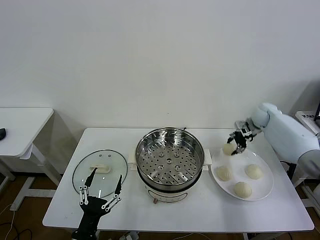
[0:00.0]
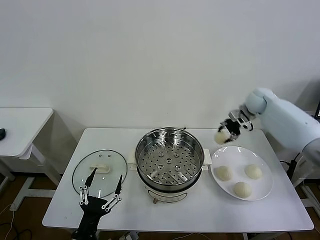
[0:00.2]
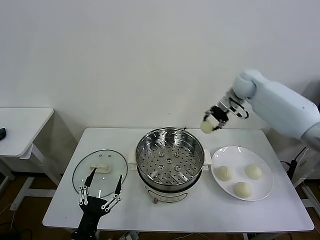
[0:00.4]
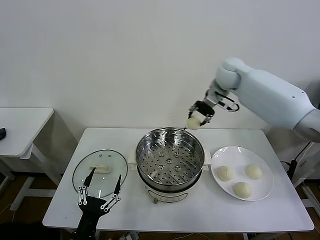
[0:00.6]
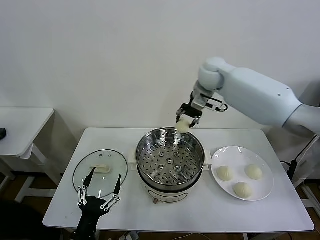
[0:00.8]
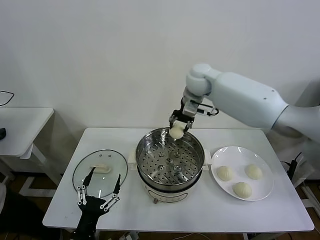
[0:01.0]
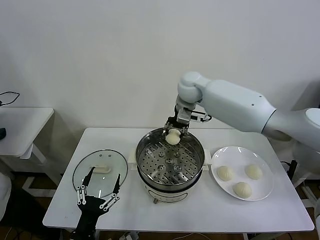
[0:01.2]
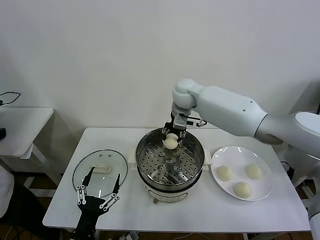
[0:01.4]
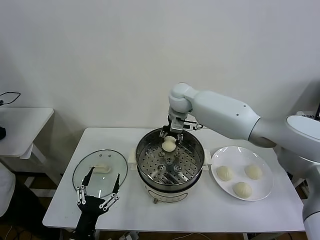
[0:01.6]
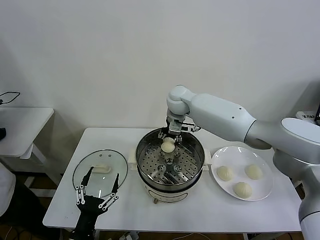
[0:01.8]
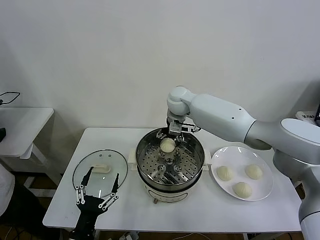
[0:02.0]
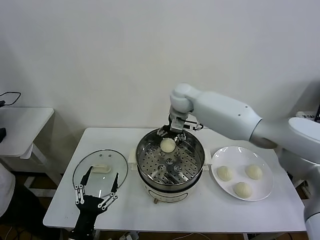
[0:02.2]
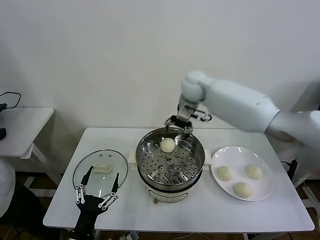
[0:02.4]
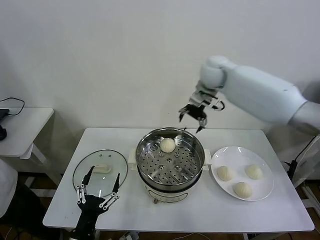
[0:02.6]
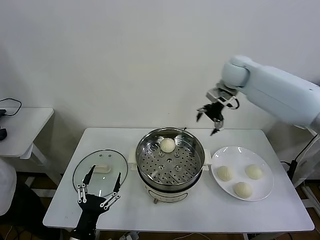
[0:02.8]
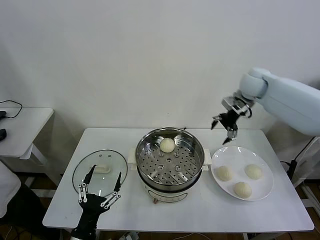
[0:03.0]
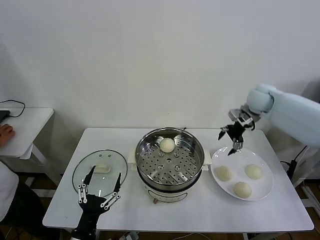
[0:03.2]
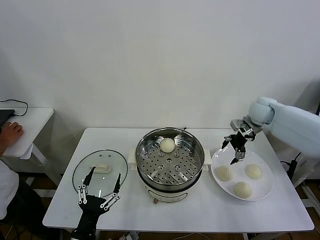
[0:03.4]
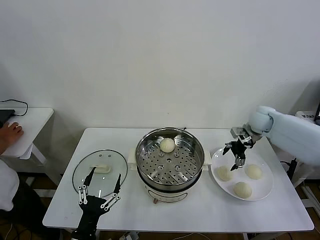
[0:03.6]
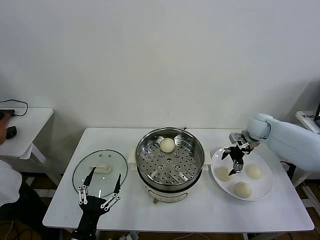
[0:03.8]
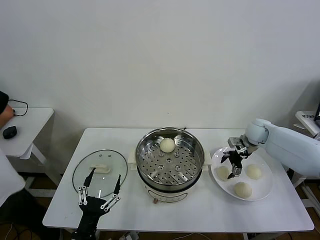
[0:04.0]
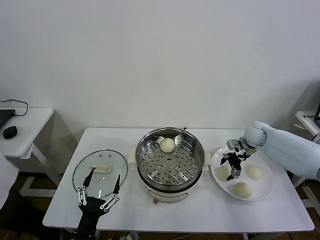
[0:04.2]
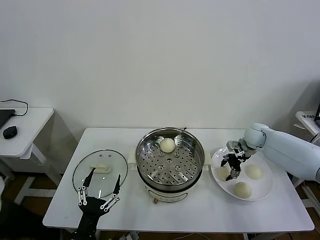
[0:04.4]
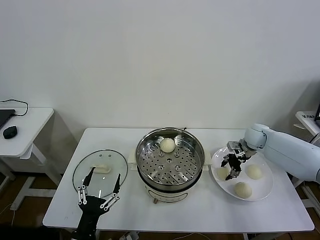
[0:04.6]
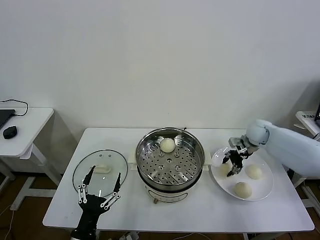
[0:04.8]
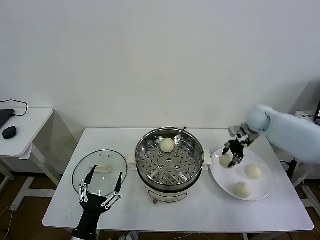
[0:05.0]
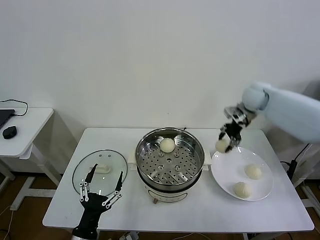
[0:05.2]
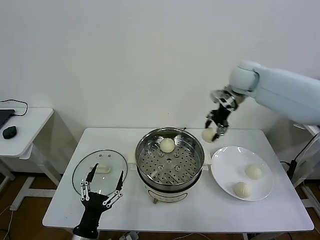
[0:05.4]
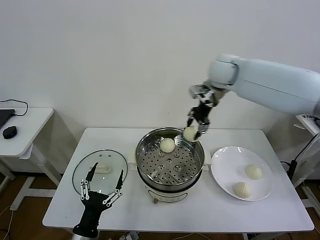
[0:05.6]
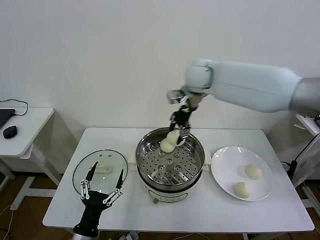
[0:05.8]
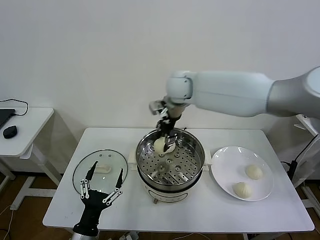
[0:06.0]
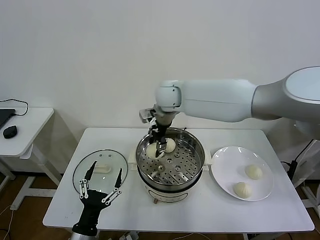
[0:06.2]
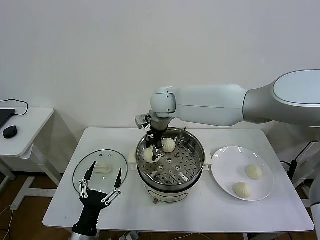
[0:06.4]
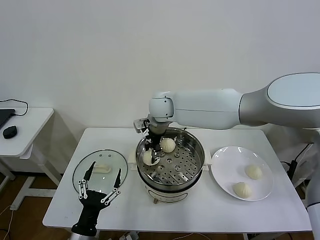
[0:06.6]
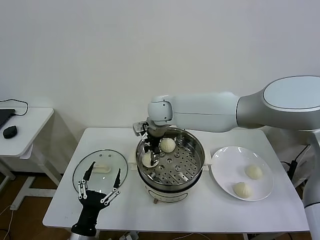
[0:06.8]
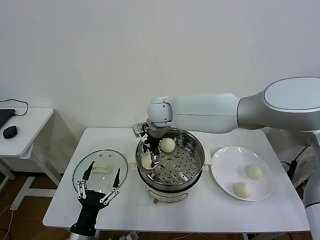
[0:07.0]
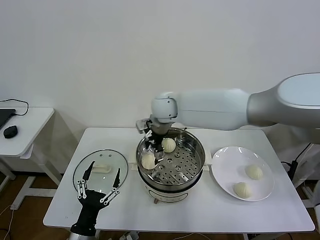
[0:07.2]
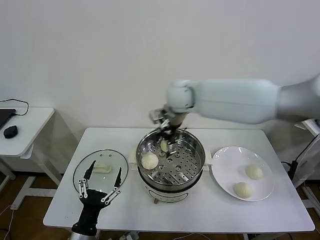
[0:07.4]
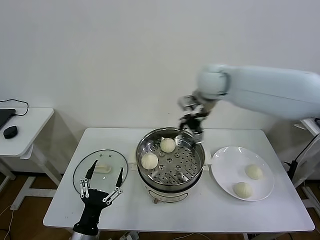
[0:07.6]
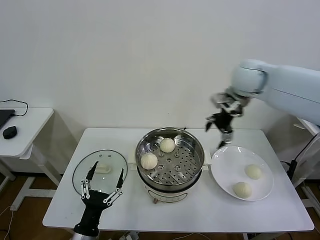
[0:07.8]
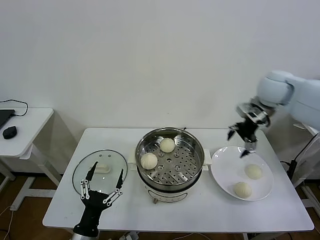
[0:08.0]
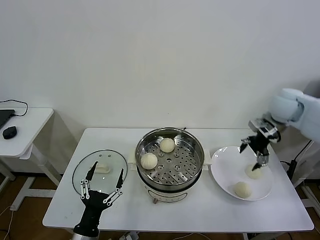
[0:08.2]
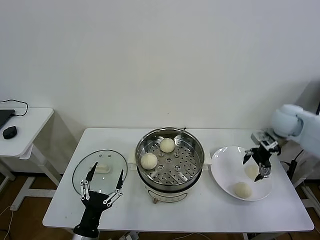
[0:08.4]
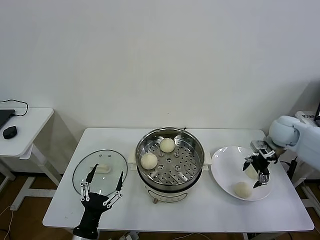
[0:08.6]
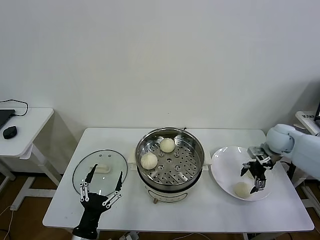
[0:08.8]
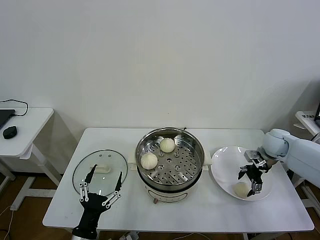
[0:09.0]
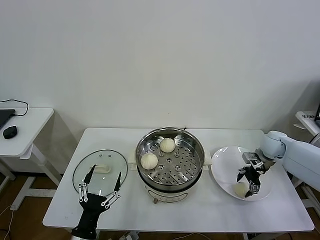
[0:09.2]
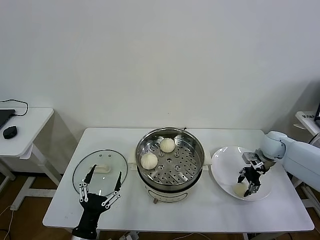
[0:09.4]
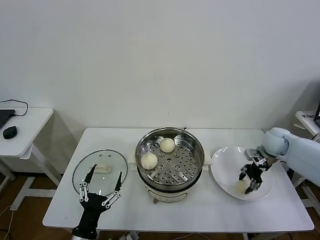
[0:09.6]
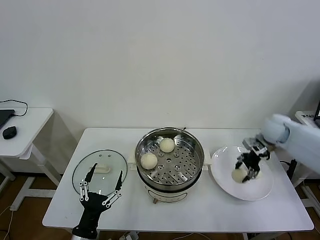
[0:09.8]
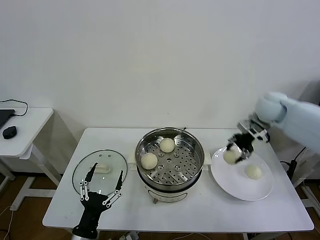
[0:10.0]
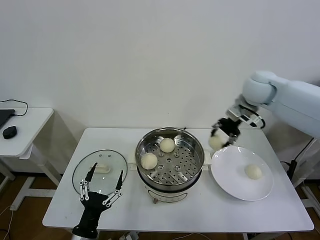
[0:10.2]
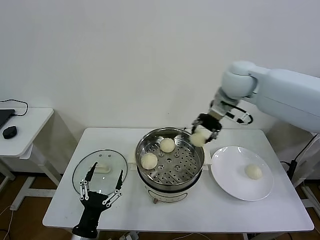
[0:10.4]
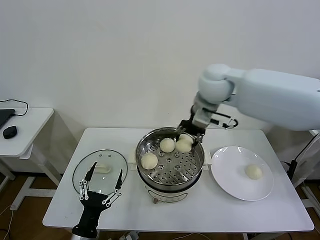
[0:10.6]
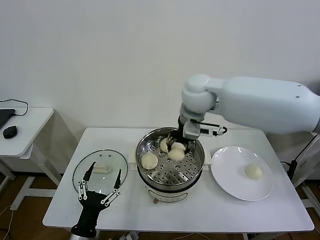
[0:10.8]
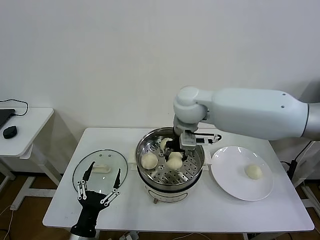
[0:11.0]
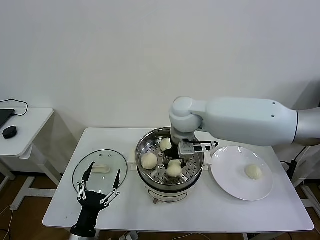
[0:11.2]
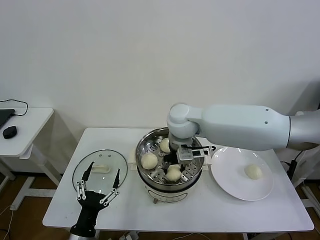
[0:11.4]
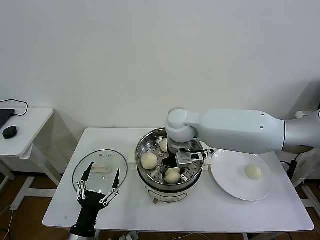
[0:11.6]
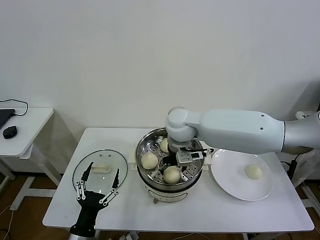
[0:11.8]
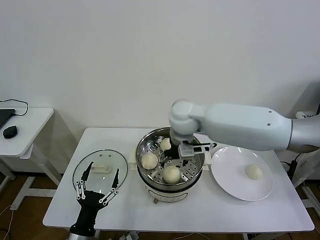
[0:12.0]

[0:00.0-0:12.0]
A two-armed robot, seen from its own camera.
Task of the whole recording: take steamed baozi put them in steamer then cover it.
Step, 0:00.0 to 0:02.0: Place the baozi on the steamer with right gripper.
Step, 0:02.2 to 0:04.6: Grasp the baozi in the plate with right gripper.
Step, 0:04.8 to 0:06.8: Place the baozi on the steamer with right gripper.
Step, 0:07.2 to 0:09.4: Grasp the baozi in the plate with right gripper.
Step, 0:09.6 to 0:11.6: Place the baozi on the steamer with right gripper.
0:00.0 to 0:01.6: The right gripper is displaced to the left by some 35 cm.
0:01.6 to 0:03.0: The right gripper is displaced to the right by some 25 cm, and opens up.
0:03.0 to 0:04.4: The right gripper heads downward, covering some 20 cm, and closes.
0:04.4 to 0:06.0: The right gripper travels to the left and upward by some 40 cm.
0:06.0 to 0:07.6: The right gripper goes roughly 15 cm to the right, and opens its fingers.
0:07.6 to 0:09.0: The right gripper shifts some 35 cm downward and to the right.
0:09.0 to 0:10.4: The right gripper heads upward and to the left, covering roughly 35 cm, and closes up.
0:10.4 to 0:12.0: The right gripper shifts some 15 cm to the left and downward, and opens its fingers.

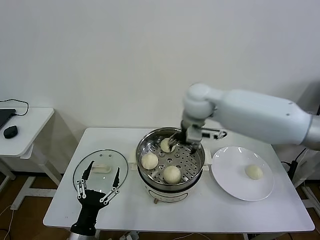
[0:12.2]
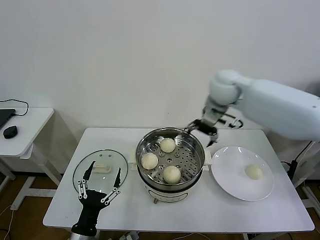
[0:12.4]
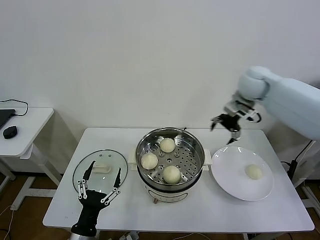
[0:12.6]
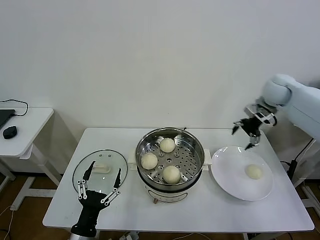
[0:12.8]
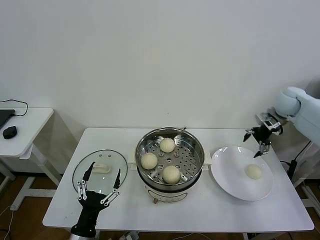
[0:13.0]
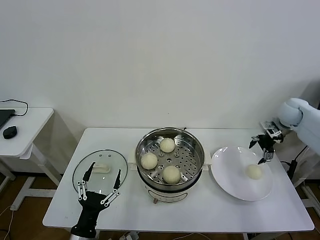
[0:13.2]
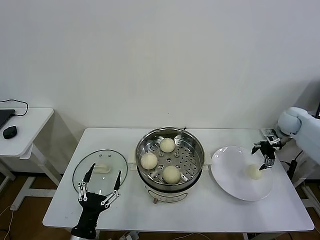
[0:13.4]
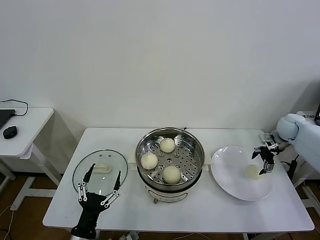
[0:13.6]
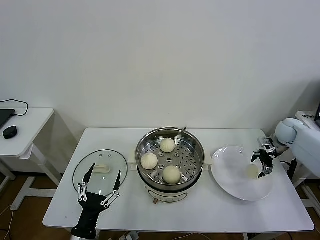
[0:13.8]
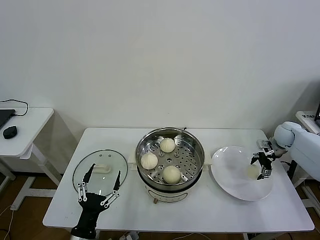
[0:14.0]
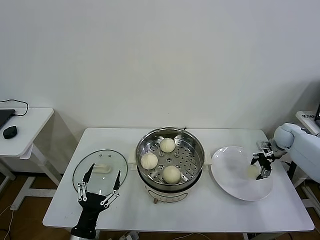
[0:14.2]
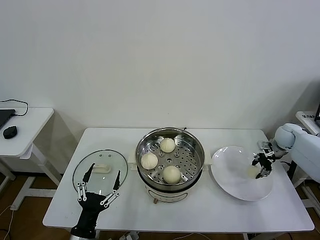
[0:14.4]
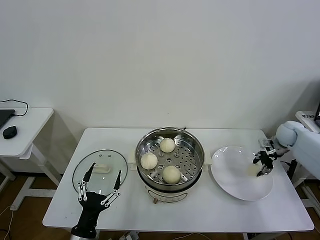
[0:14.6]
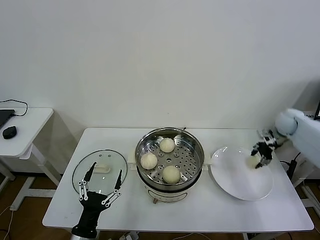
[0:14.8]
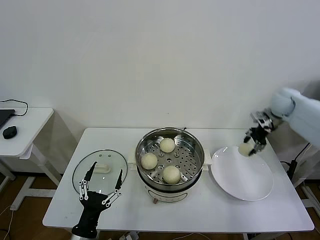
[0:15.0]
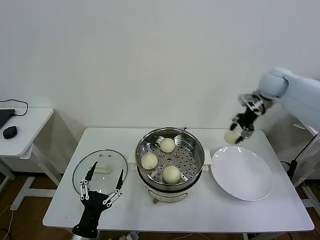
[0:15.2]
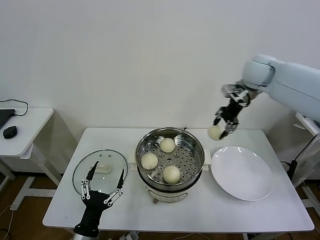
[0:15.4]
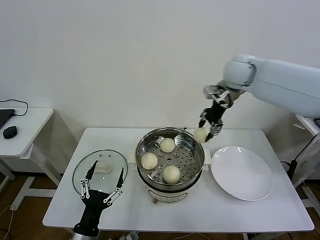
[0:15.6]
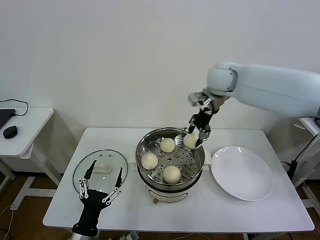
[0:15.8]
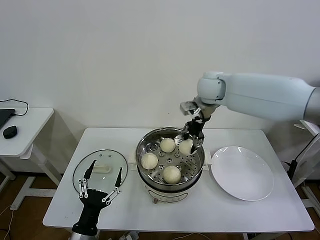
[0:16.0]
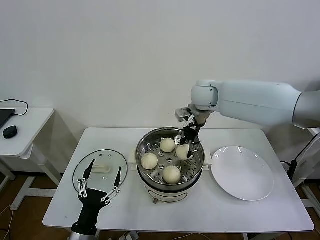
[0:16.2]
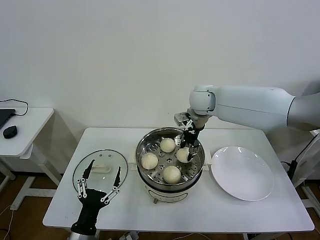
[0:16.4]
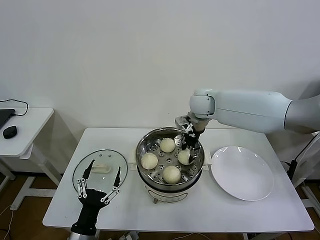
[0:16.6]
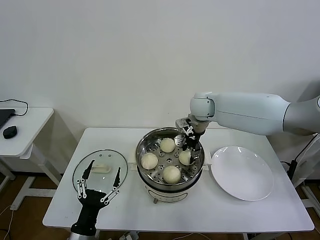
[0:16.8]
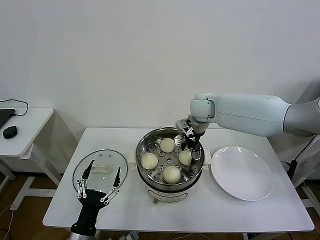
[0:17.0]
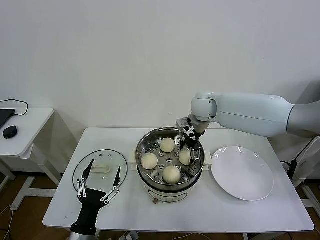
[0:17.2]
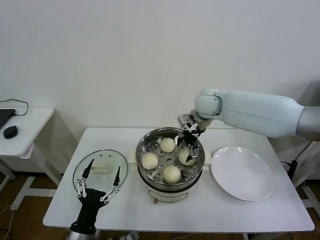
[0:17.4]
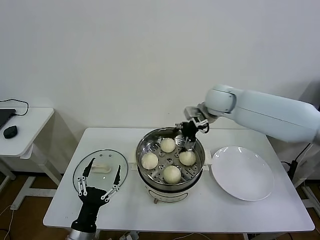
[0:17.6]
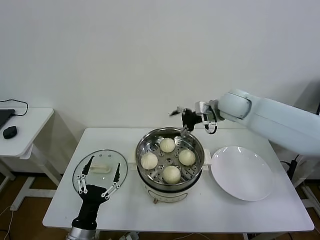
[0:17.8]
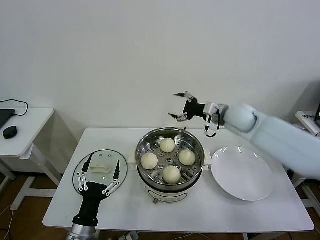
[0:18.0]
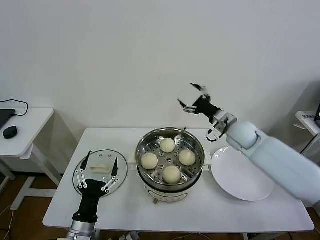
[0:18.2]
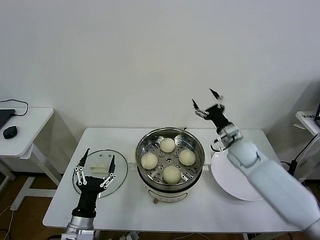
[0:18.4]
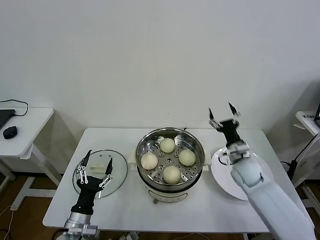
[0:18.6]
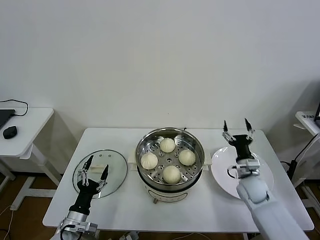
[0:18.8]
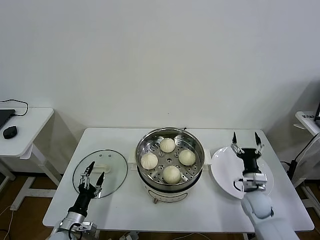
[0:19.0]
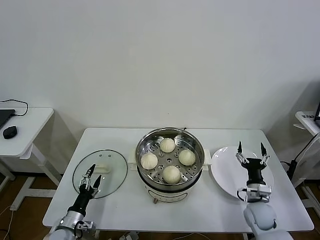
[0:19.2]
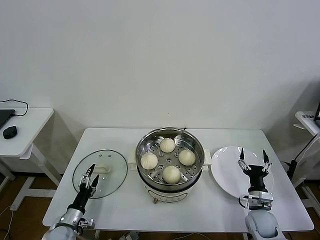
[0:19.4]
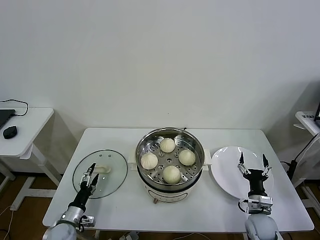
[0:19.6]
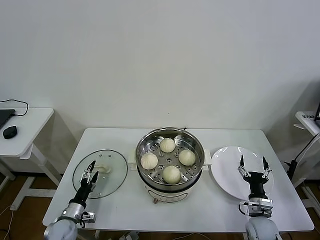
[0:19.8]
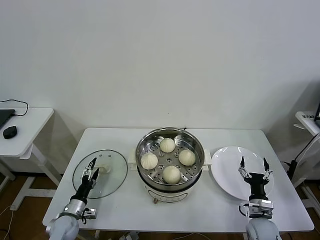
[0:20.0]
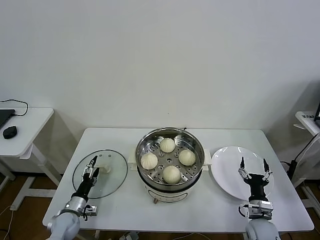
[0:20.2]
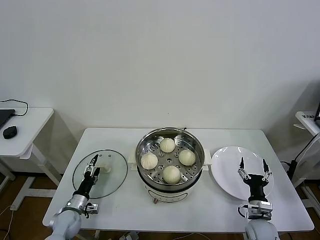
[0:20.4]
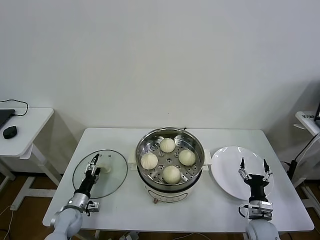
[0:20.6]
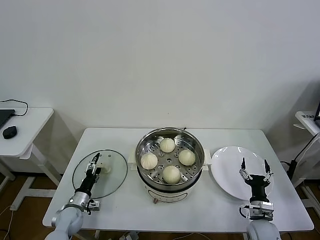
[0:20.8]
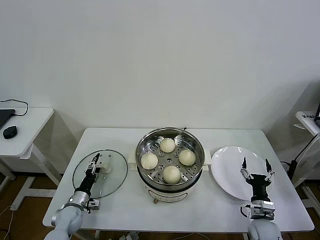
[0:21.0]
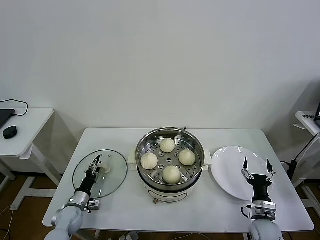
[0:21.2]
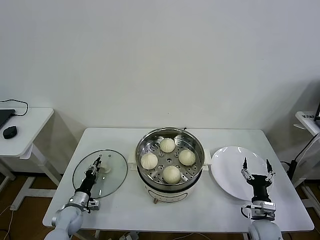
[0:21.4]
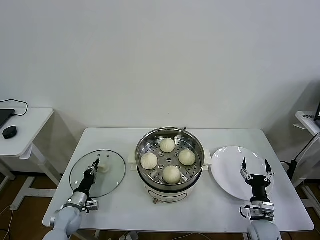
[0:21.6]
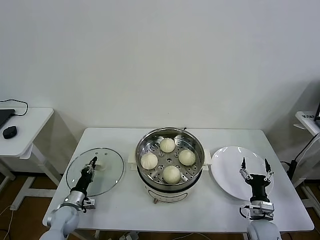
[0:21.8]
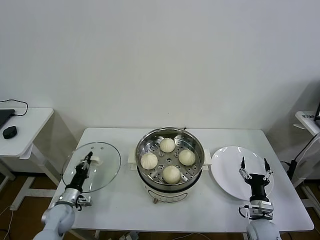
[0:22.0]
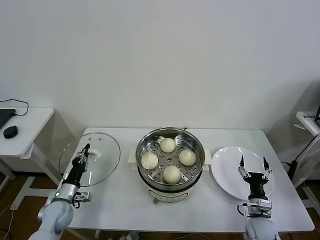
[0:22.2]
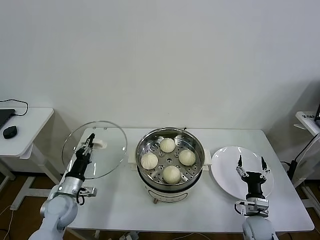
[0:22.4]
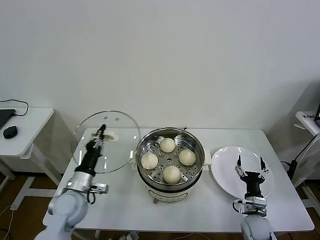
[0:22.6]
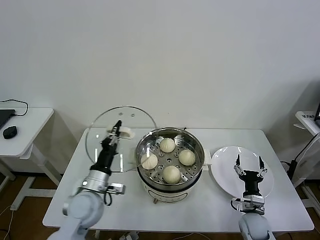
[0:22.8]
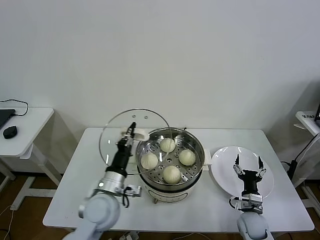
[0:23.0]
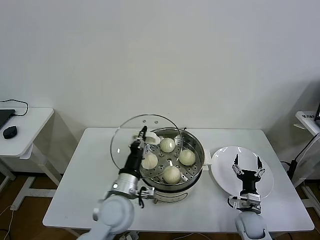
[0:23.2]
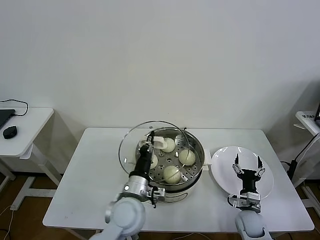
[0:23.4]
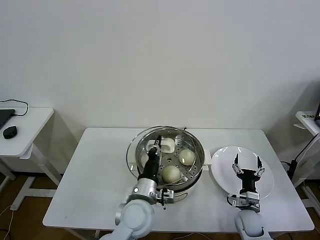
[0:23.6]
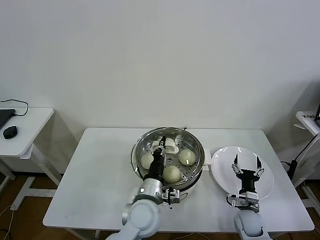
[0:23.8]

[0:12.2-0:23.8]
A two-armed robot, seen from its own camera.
Task of the whole recording: take steamed baozi put them in steamer then cover it.
Step, 0:12.2 to 0:14.4: Grasp the baozi in the plate with right gripper.
Step, 0:14.6 to 0:16.8: Place the baozi on the steamer with right gripper.
Step, 0:17.0 to 0:21.6: Grasp the pot lid with left gripper.
0:12.2 to 0:13.6: The right gripper travels to the right and downward by approximately 40 cm.
0:13.6 to 0:15.0: The right gripper goes about 15 cm upward and to the left, and closes.
0:15.0 to 0:16.6: The right gripper goes approximately 30 cm to the left.
0:16.6 to 0:18.0: The right gripper is displaced to the right and backward by about 15 cm, and opens.
0:18.0 to 0:19.4: The left gripper shifts roughly 20 cm downward, to the left and forward. The right gripper is displaced downward and backward by some 35 cm.
0:19.4 to 0:21.0: The left gripper goes some 10 cm forward.
0:21.0 to 0:22.4: The left gripper heads upward, covering roughly 10 cm, and closes up.
0:22.4 to 0:23.8: The left gripper goes approximately 30 cm to the right.
